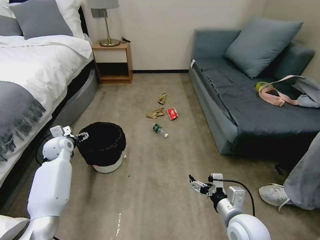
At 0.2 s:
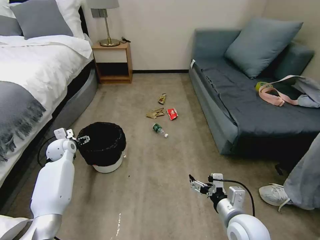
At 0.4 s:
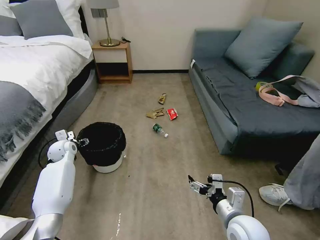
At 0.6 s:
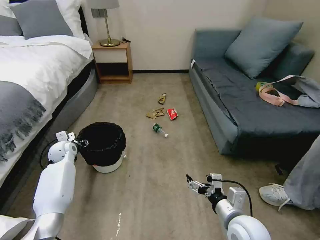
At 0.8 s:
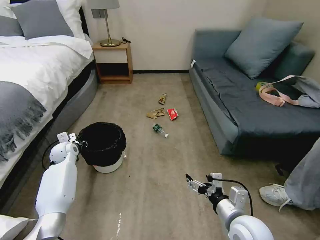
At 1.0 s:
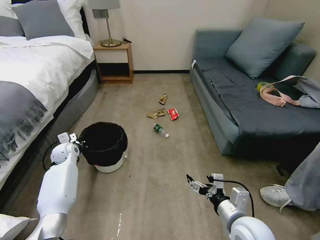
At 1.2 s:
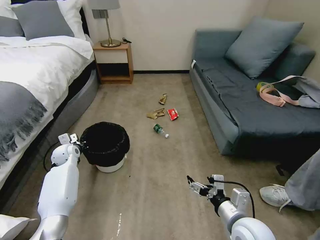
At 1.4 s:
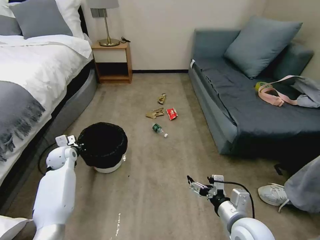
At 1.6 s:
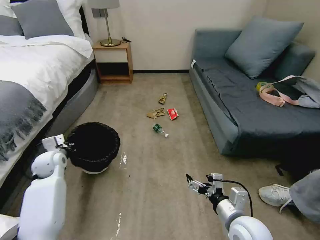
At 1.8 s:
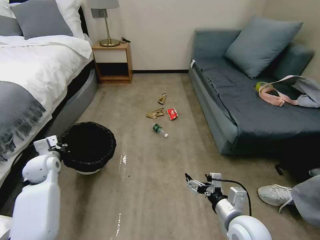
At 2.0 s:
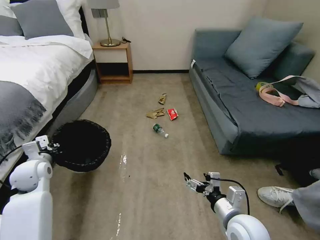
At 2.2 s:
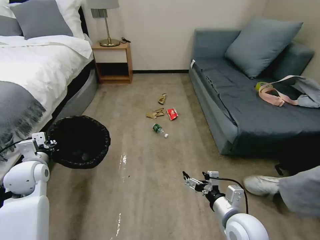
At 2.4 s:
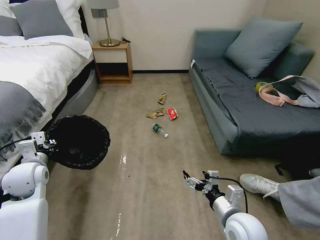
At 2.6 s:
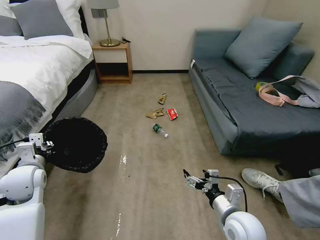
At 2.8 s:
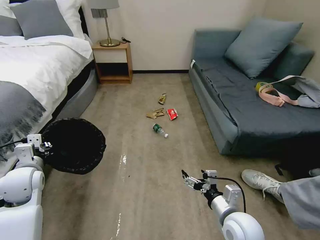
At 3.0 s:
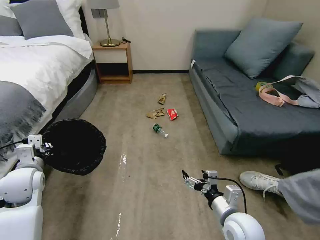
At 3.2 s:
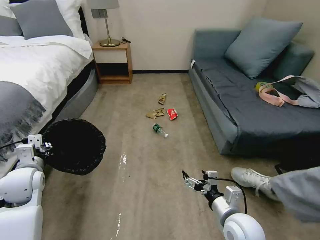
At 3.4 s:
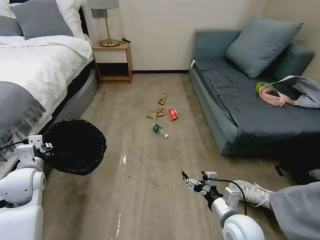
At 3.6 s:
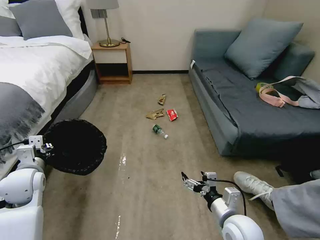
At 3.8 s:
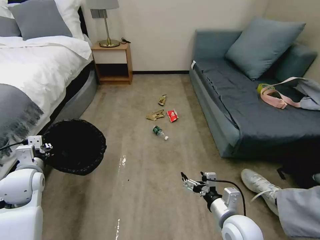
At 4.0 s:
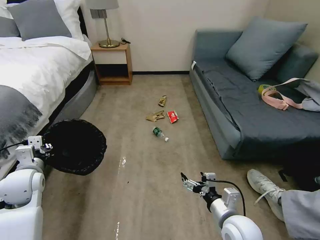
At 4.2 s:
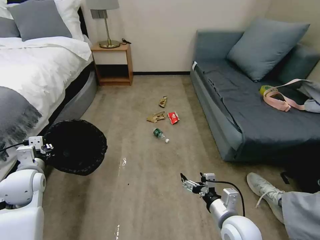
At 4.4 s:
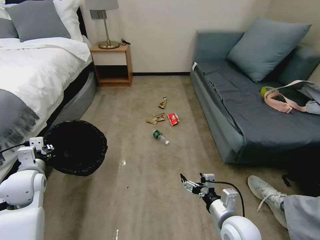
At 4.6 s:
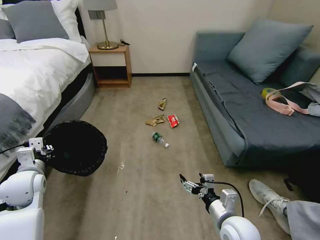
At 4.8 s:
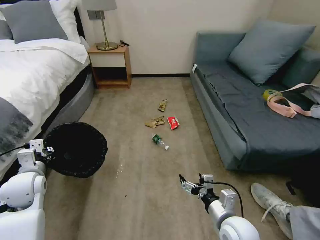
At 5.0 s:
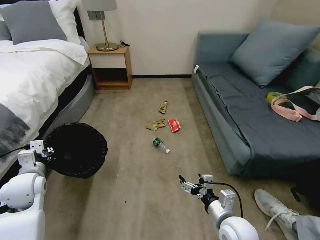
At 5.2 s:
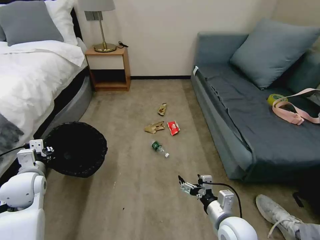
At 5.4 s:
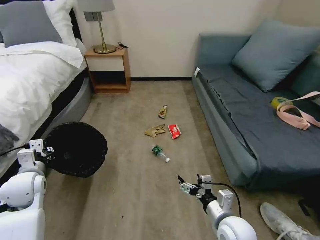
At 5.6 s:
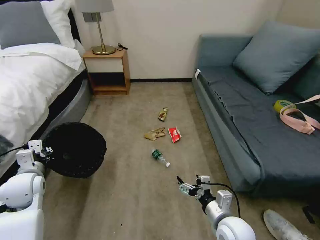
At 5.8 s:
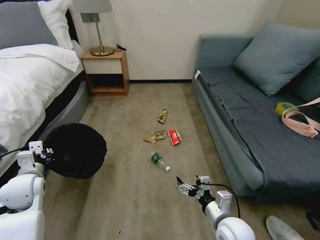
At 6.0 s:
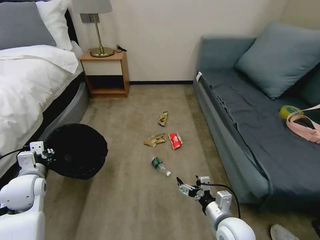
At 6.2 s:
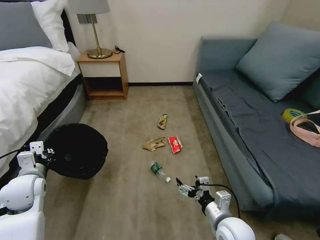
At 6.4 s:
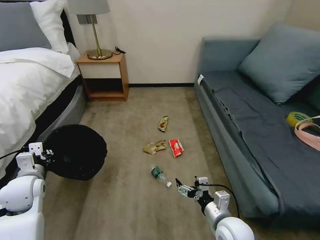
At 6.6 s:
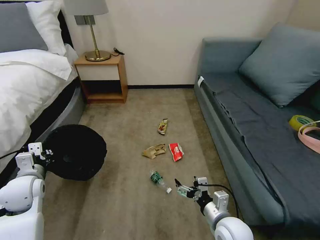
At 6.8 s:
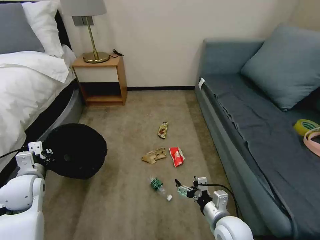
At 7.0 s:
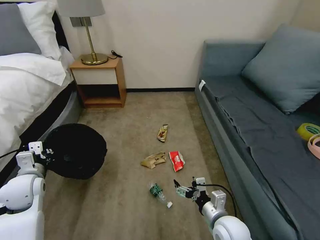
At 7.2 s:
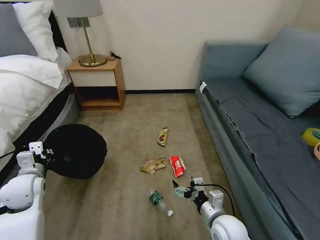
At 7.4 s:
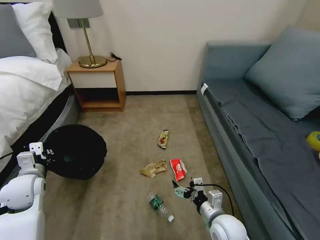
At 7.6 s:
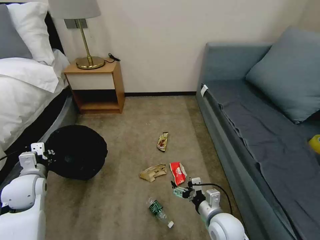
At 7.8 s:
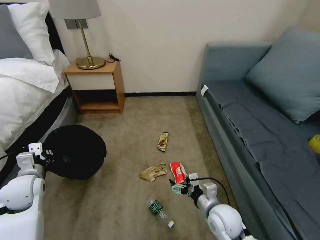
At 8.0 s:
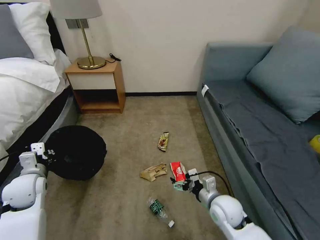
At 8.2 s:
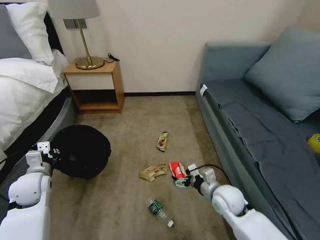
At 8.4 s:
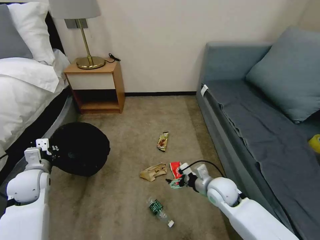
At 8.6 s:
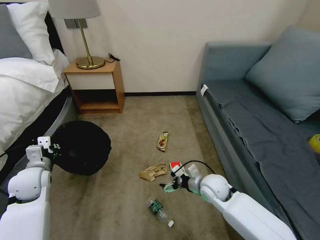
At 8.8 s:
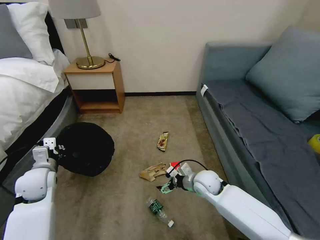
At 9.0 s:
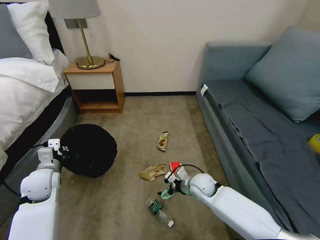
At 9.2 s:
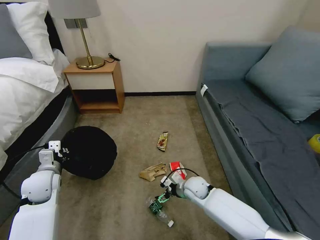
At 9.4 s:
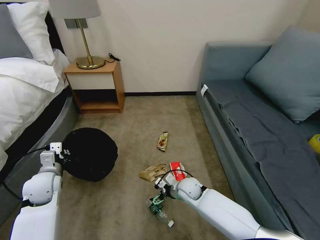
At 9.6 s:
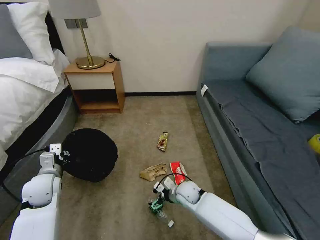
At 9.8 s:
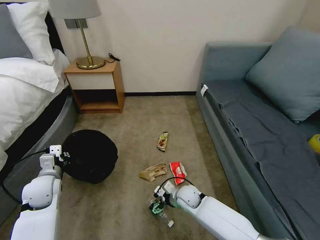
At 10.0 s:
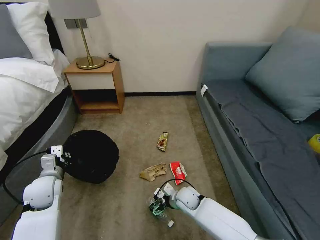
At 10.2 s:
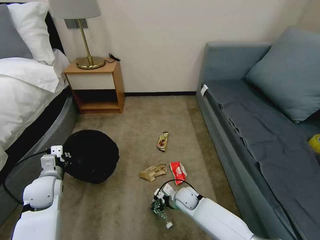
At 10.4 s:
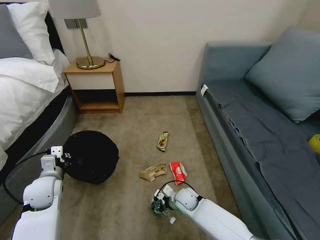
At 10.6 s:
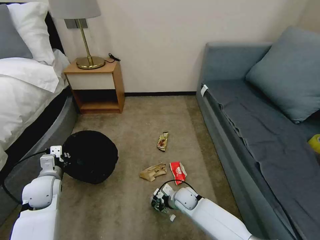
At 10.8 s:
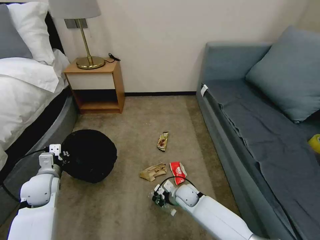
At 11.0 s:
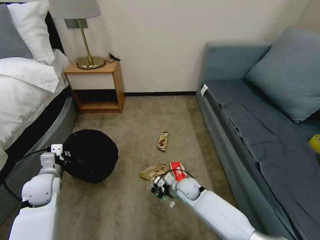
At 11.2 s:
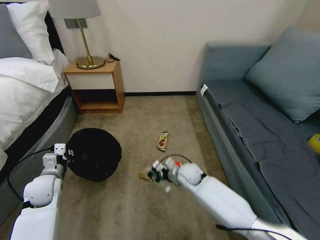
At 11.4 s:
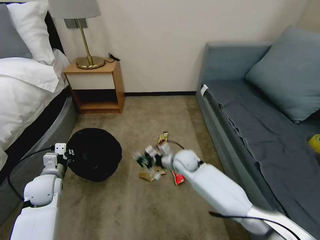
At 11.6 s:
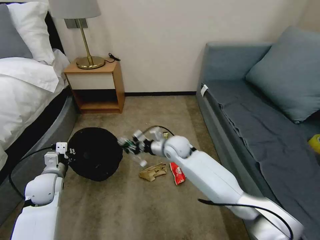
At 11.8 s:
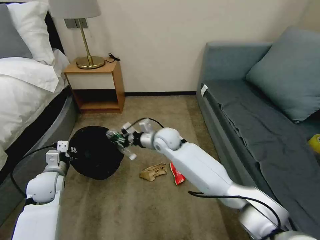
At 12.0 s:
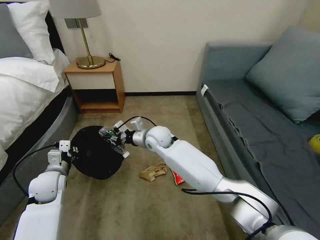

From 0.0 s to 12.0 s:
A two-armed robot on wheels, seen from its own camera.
Task of the whole recording: Pick up the trash bin, then pick up the garbage on the floor and place it into the trash bin.
From 0.0 s to 1.6 s: The left gripper shifts about 5 cm backward, and closes its fingers.
From 1.6 s to 3.0 s: The left gripper shifts about 15 cm backward and upward.
From 7.6 s to 9.0 s: The right gripper moves forward, roughly 15 cm.
From 9.0 s to 10.4 s: The right gripper goes some 10 cm downward and to the left, and closes its fingers.
From 10.4 s to 12.0 s: The right gripper heads upward, forward and to the left, covering some 30 cm, and closes.

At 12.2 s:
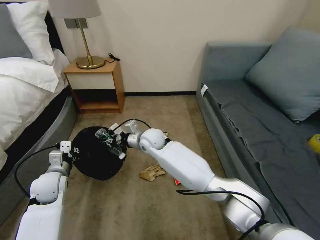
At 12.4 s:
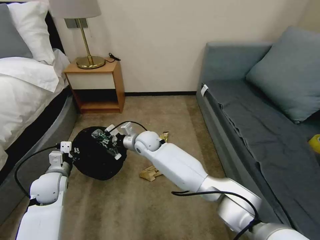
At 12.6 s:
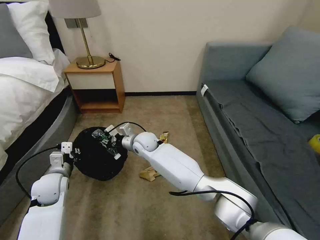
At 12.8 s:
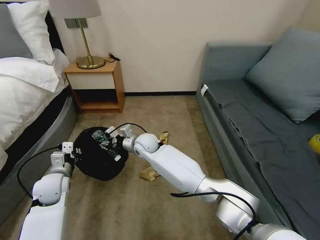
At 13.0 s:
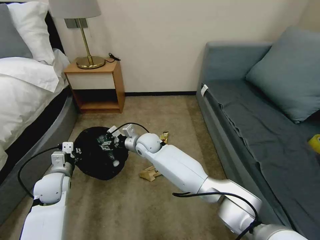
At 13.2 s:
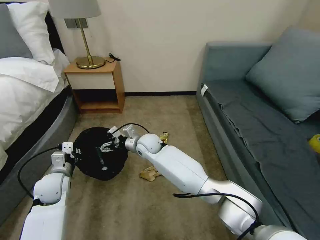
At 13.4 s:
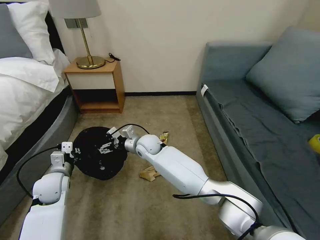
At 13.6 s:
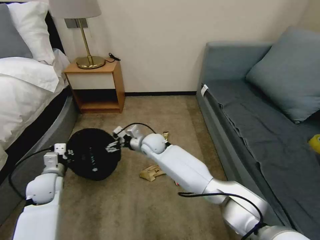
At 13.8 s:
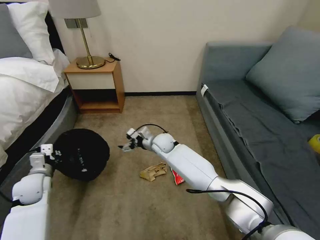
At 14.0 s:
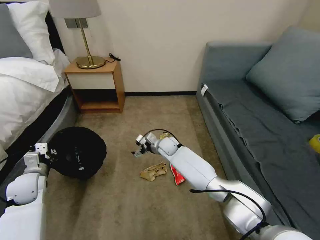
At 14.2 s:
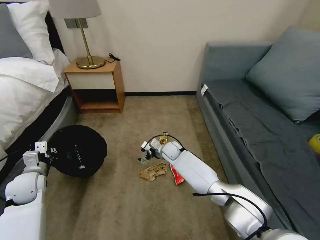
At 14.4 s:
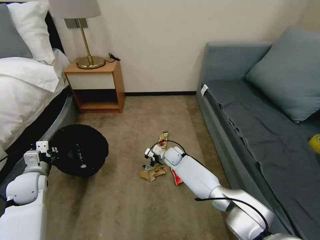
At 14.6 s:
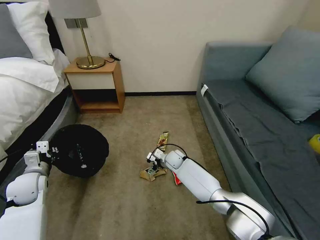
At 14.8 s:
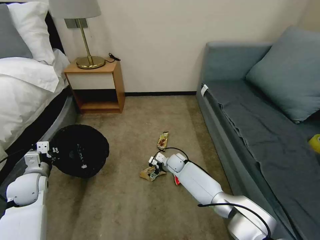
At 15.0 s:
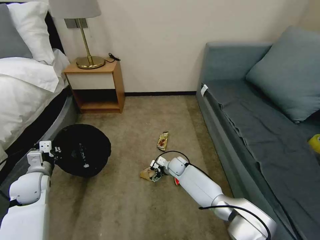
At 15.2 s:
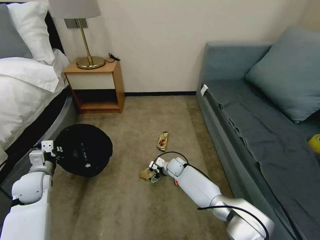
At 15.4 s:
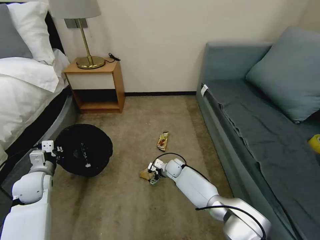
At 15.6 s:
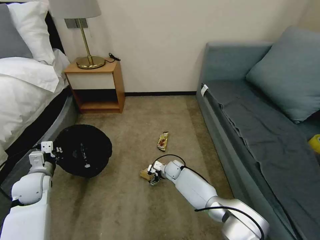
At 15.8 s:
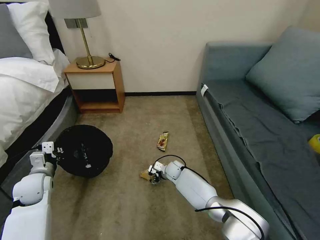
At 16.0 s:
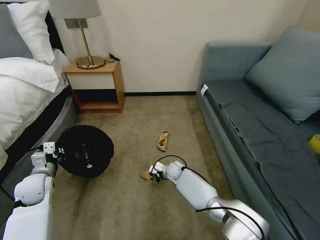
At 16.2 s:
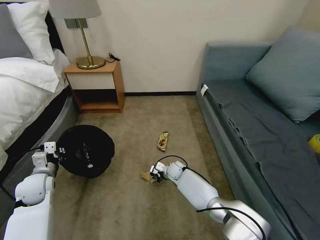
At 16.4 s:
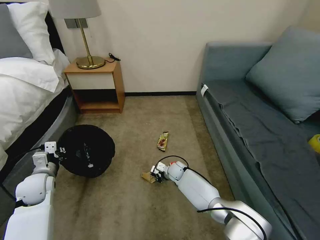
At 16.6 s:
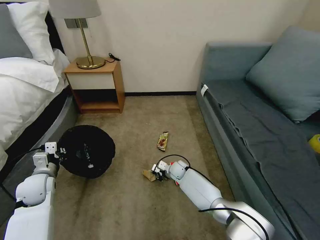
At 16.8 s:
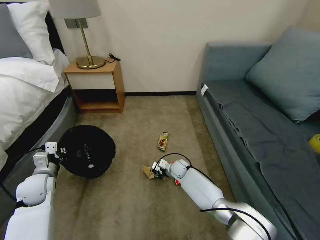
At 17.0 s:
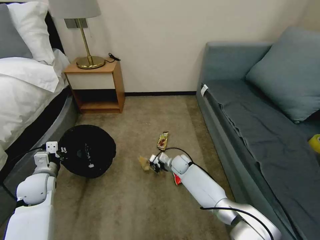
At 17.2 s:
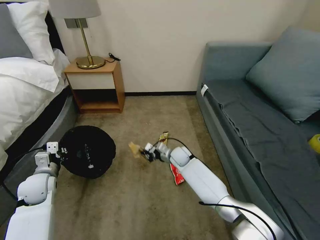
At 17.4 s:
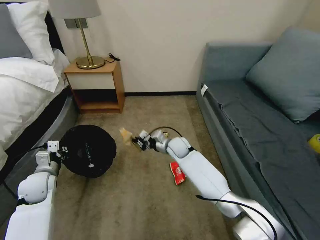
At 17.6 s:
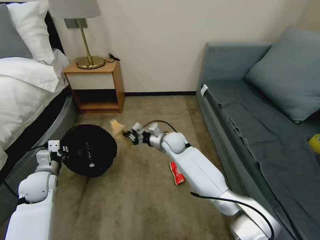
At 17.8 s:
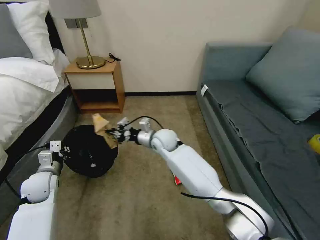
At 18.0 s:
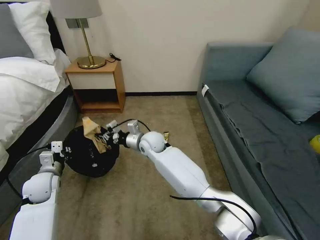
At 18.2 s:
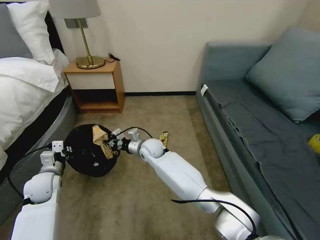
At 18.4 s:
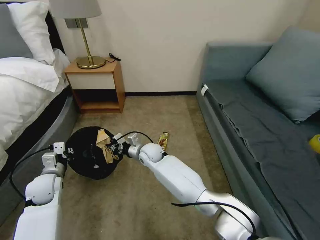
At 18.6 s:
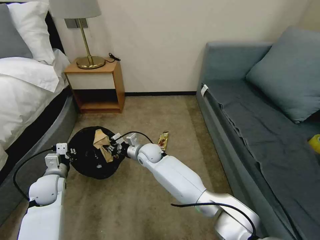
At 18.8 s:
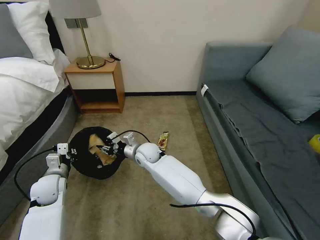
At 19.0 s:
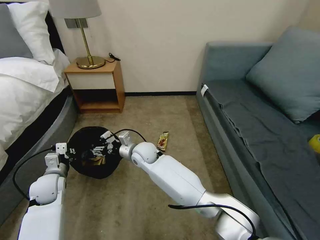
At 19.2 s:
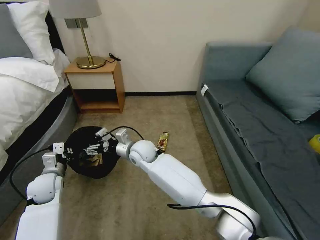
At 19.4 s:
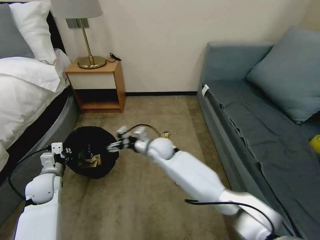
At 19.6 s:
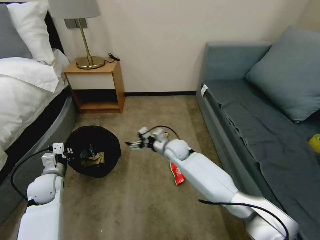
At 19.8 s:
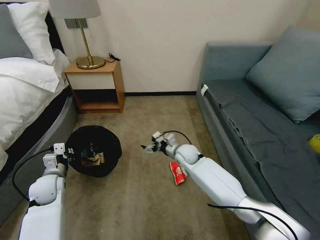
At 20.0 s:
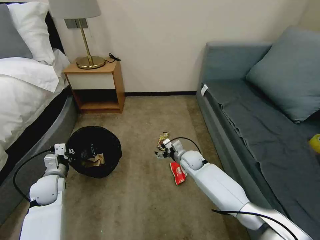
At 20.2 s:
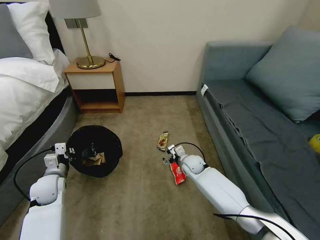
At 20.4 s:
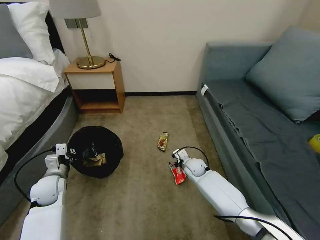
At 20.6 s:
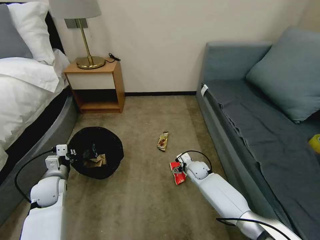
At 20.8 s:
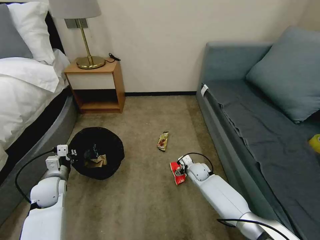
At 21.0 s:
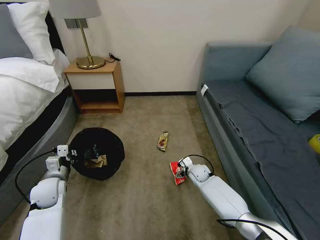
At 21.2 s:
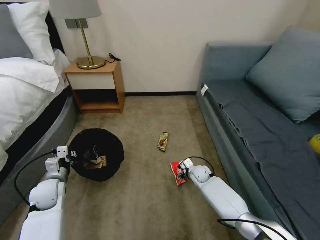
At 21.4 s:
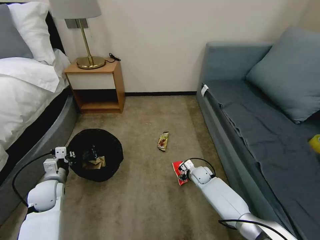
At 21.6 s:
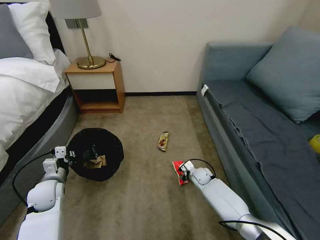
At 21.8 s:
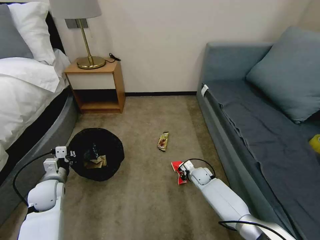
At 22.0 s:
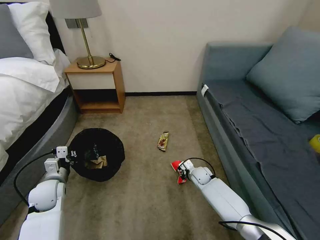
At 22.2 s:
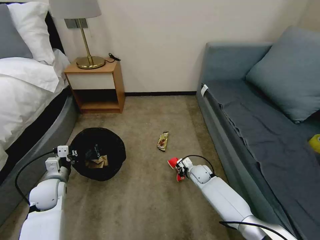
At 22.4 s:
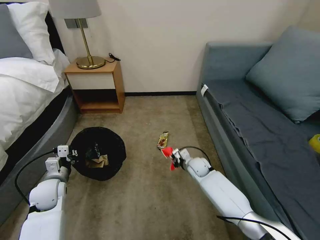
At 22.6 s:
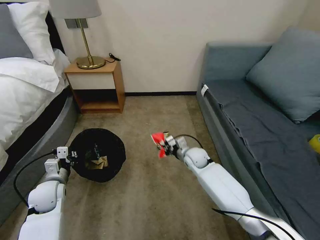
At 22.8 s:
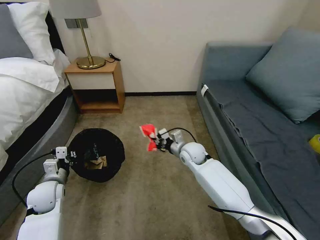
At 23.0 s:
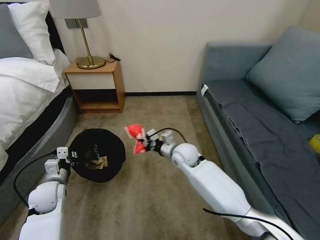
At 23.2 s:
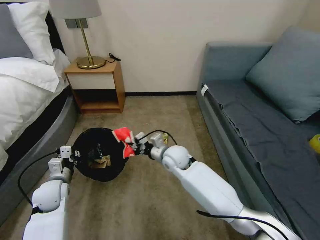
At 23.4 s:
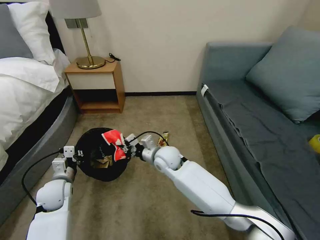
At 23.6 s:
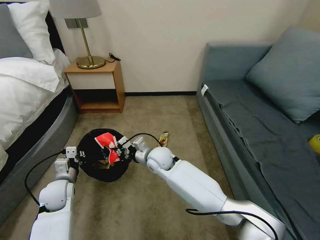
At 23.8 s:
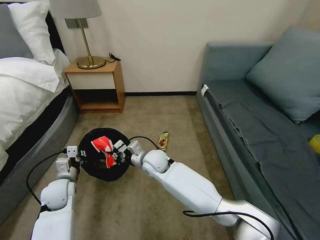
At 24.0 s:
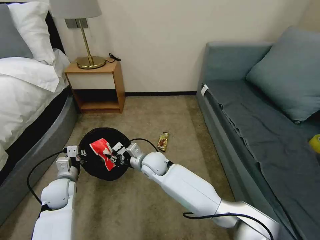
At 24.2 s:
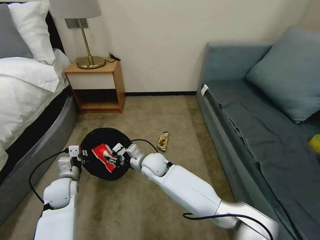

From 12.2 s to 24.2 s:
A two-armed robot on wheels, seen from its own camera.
Task of the whole recording: Pick up the trash bin, then pick up the garbage on the floor and place it into the trash bin.
From 12.2 s to 13.8 s: The right gripper heads downward, covering approximately 5 cm, and opens its fingers, while the left gripper is displaced to the left by approximately 5 cm.
From 13.8 s to 15.2 s: The right gripper shifts some 15 cm downward and to the right.
From 15.2 s to 16.6 s: The right gripper closes up.
From 16.6 s to 18.2 s: The right gripper moves upward and to the left, approximately 20 cm.
From 18.2 s to 19.8 s: The right gripper shifts roughly 15 cm to the right, and opens up.
From 19.8 s to 21.2 s: The right gripper goes some 15 cm downward and to the right.
From 21.2 s to 22.6 s: The right gripper heads upward, covering roughly 10 cm, and closes its fingers.
From 22.6 s to 24.2 s: The right gripper heads to the left, covering roughly 20 cm, and opens up.
